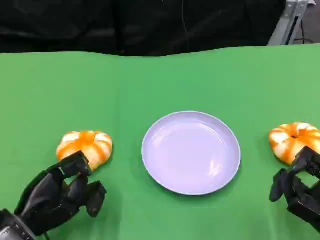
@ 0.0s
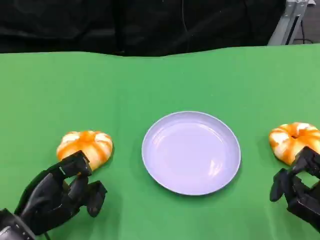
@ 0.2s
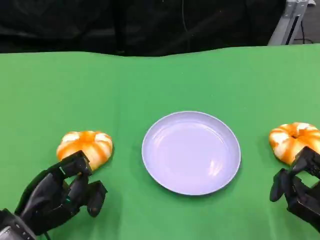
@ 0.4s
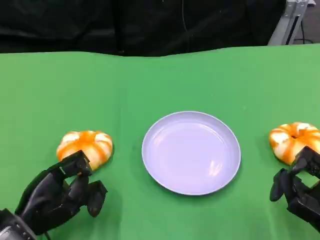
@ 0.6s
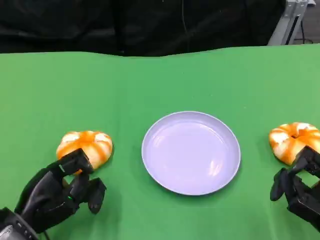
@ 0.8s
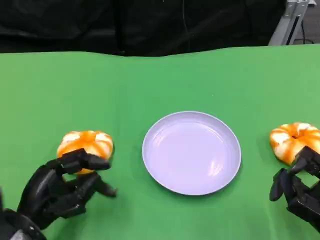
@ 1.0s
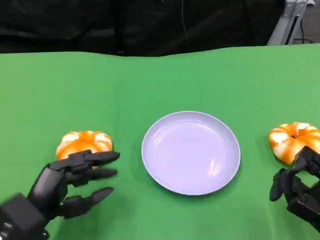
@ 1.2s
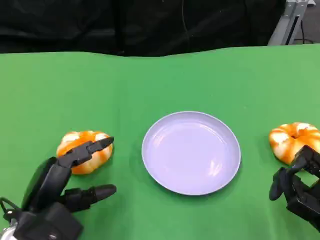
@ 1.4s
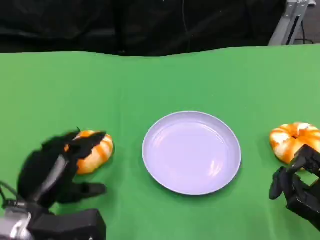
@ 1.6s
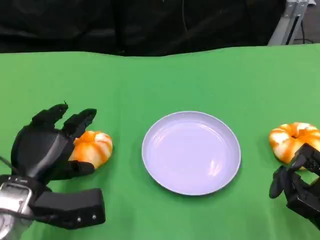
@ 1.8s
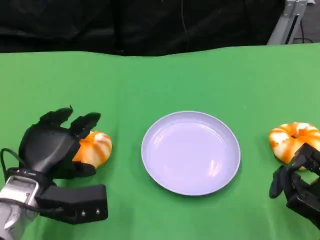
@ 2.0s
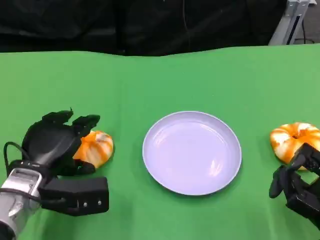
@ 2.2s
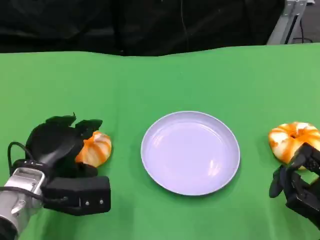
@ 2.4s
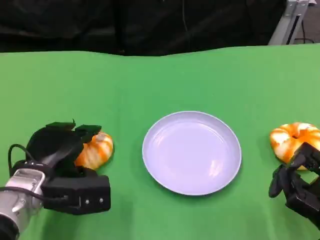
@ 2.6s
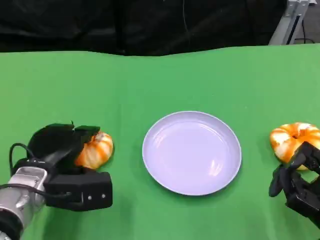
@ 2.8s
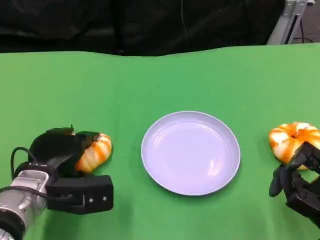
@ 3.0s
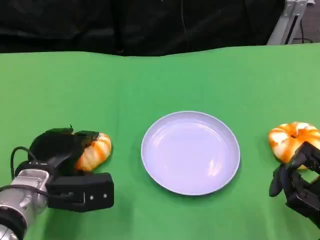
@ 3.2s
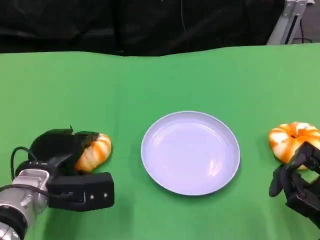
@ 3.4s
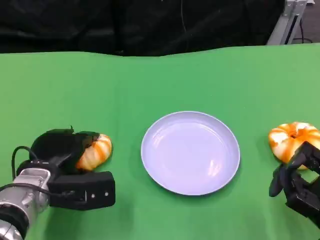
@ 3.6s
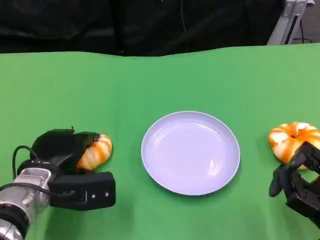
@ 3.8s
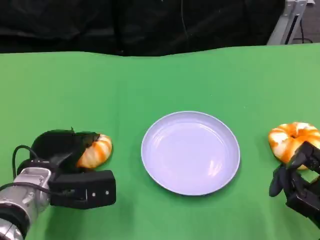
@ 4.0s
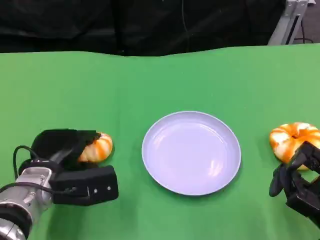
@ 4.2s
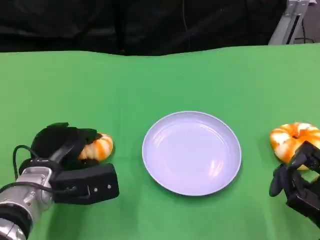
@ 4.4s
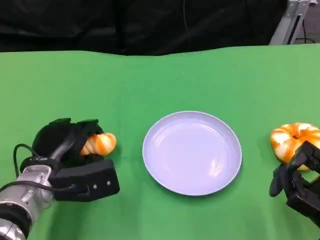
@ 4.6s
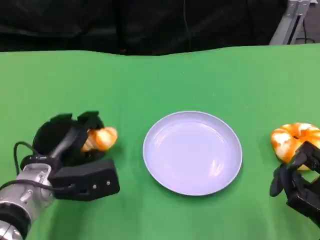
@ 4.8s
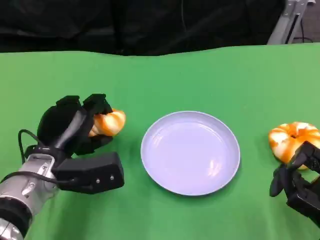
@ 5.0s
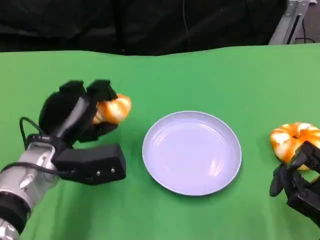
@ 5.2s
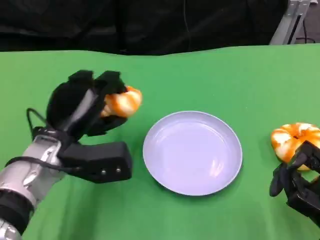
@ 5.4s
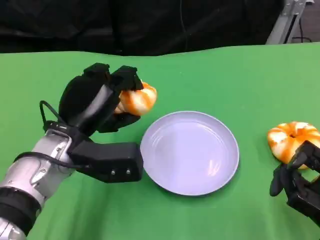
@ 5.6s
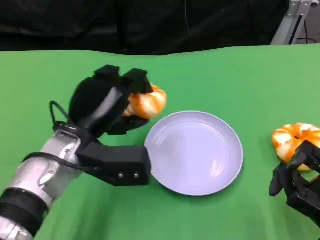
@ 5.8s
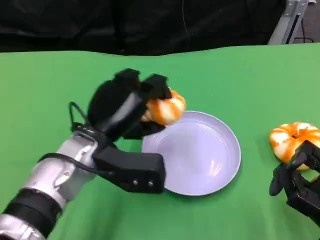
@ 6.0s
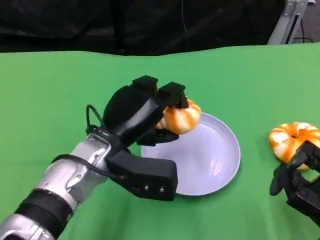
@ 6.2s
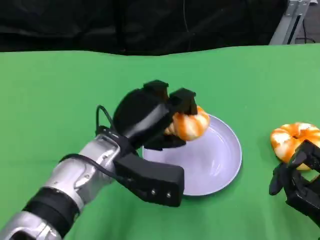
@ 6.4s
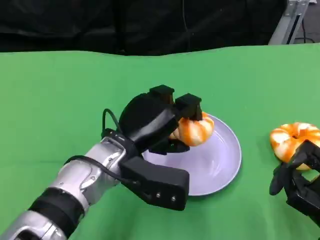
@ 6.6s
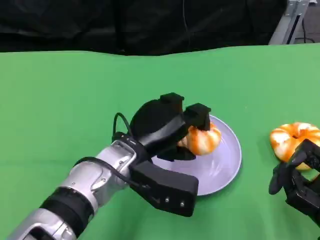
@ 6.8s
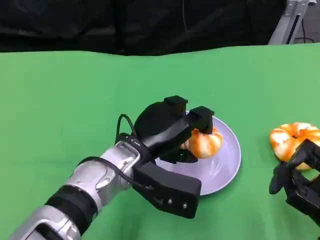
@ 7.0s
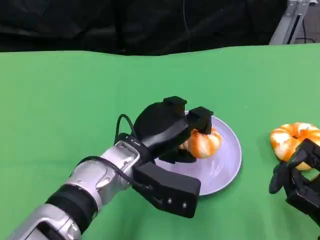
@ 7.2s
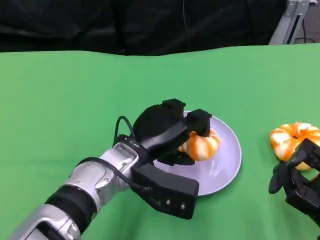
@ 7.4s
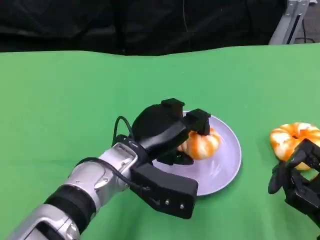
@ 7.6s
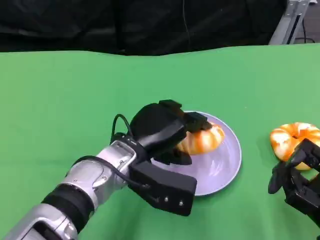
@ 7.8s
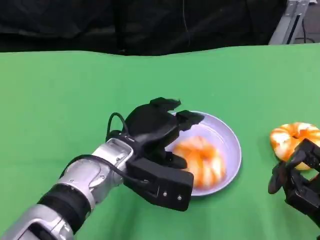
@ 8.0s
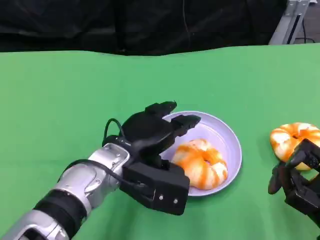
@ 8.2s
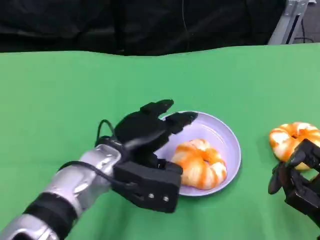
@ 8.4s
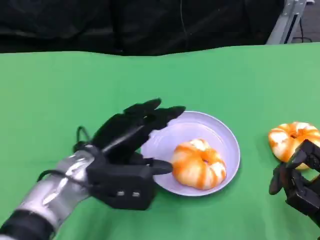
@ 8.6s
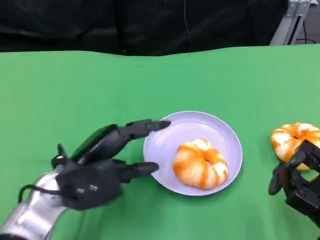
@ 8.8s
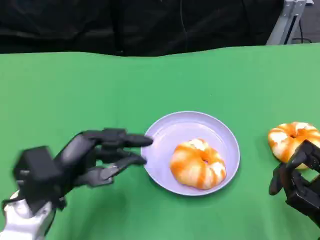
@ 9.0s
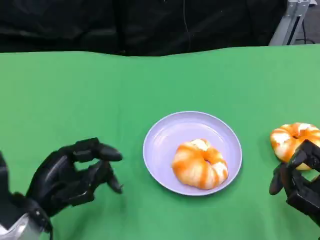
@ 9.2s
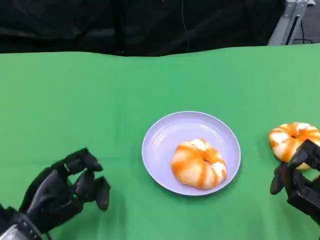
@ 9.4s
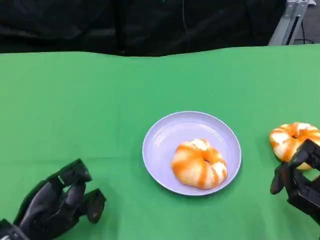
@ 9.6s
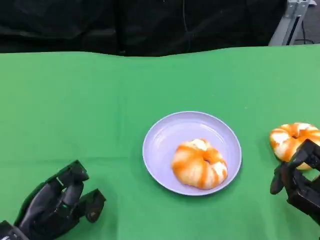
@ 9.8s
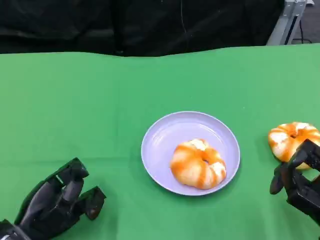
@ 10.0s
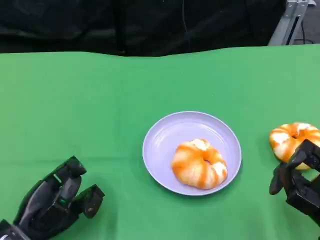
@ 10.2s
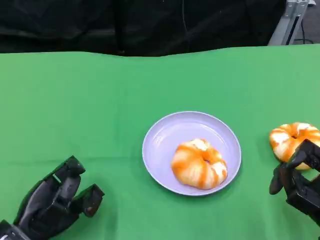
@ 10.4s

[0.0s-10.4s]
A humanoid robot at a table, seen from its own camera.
Task of the whole recording: Grasp the bread from the table and place it into the plate.
1.4s to 3.0s: The left hand travels forward by about 5 cm.
3.0s to 4.4s: The hands make only small movements.
4.4s to 6.0s: The left hand travels to the right and upward by roughly 10 cm.
6.0s to 7.4s: The left hand shifts by approximately 5 cm.
7.4s to 9.0s: The left hand travels to the left by approximately 15 cm.
9.0s to 10.4s: The left hand shifts roughly 5 cm downward.

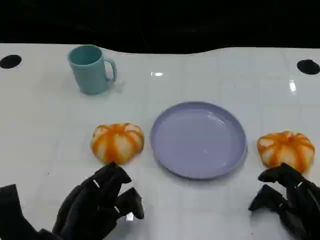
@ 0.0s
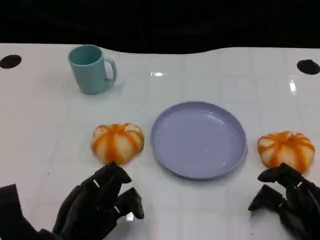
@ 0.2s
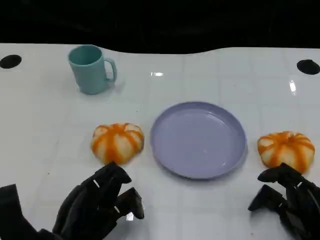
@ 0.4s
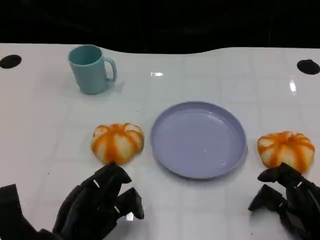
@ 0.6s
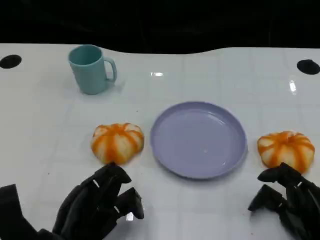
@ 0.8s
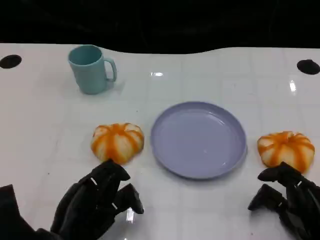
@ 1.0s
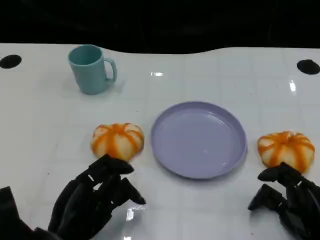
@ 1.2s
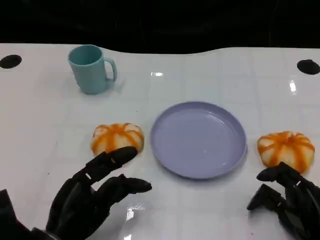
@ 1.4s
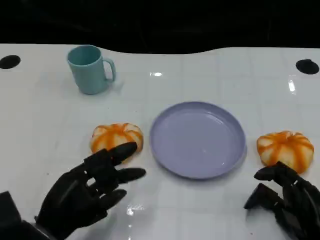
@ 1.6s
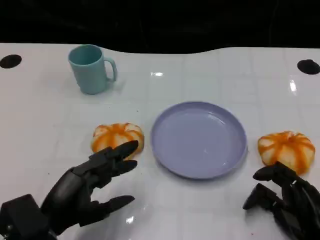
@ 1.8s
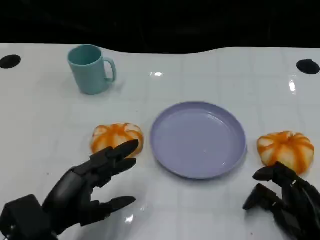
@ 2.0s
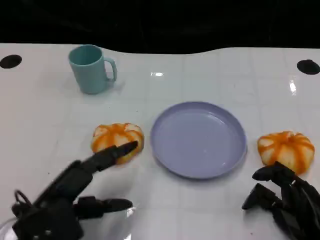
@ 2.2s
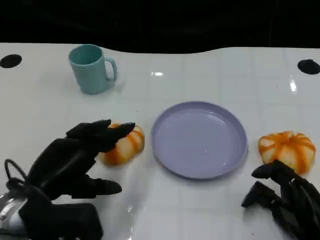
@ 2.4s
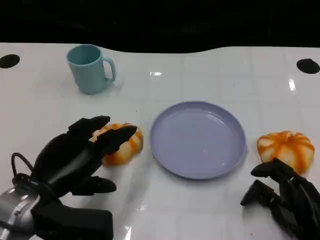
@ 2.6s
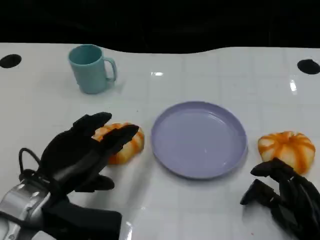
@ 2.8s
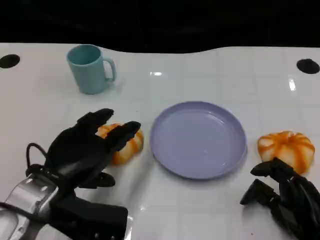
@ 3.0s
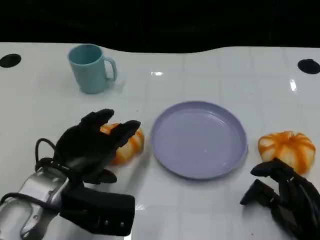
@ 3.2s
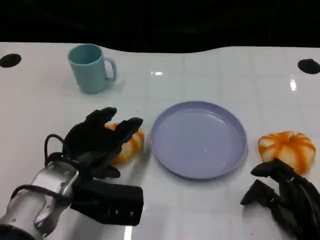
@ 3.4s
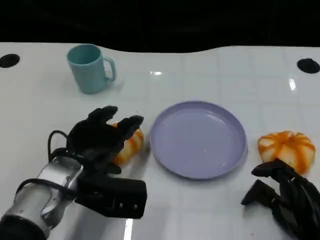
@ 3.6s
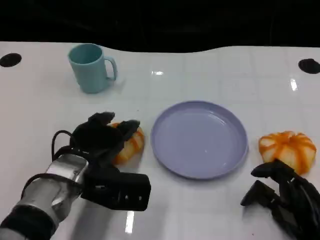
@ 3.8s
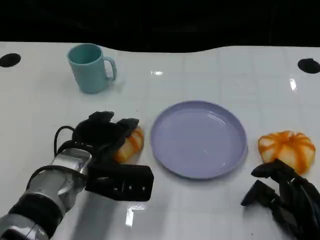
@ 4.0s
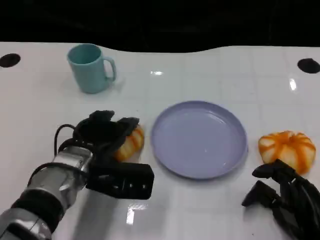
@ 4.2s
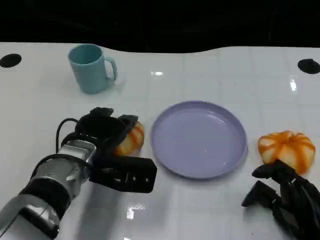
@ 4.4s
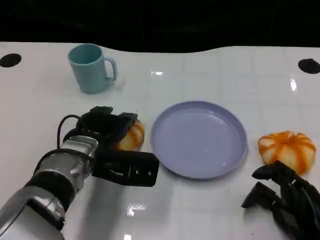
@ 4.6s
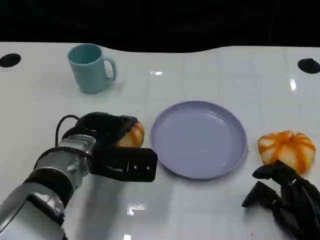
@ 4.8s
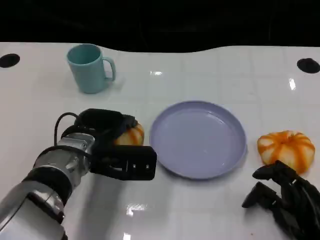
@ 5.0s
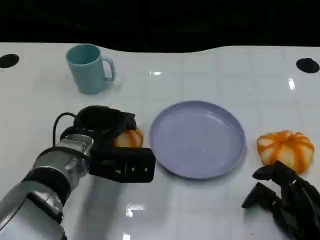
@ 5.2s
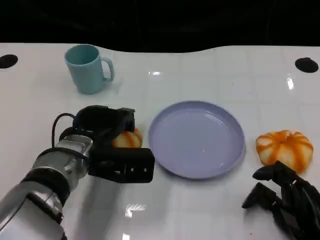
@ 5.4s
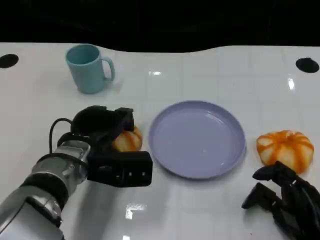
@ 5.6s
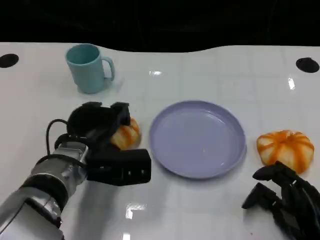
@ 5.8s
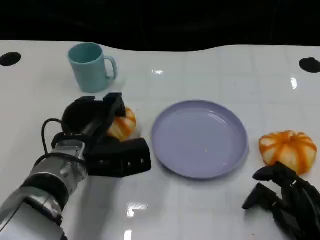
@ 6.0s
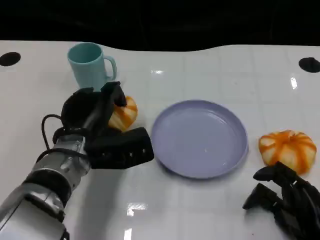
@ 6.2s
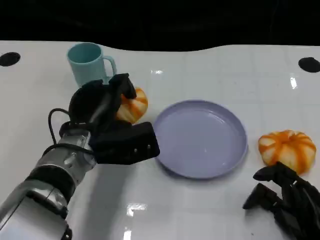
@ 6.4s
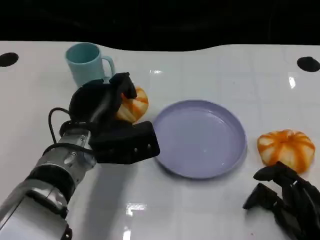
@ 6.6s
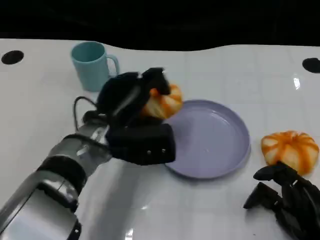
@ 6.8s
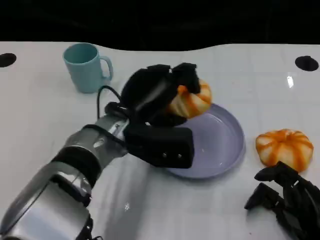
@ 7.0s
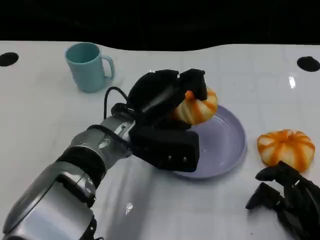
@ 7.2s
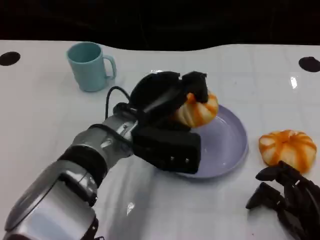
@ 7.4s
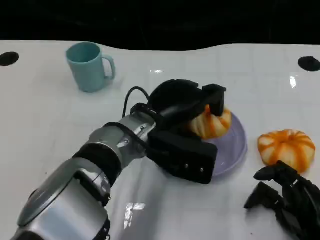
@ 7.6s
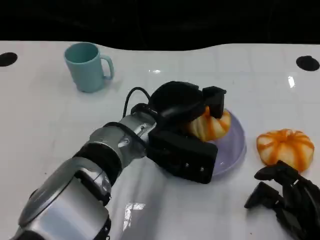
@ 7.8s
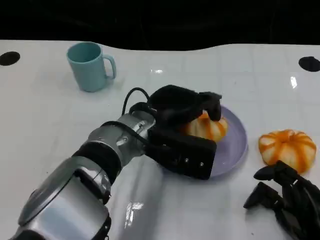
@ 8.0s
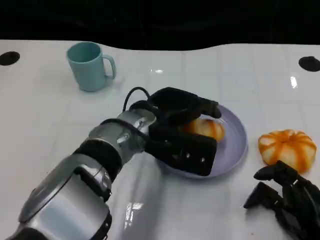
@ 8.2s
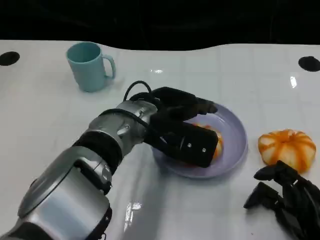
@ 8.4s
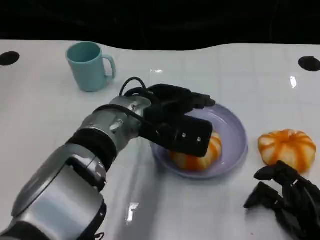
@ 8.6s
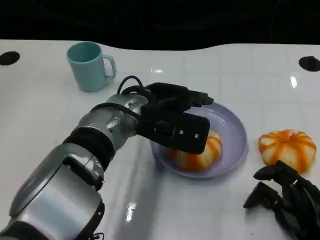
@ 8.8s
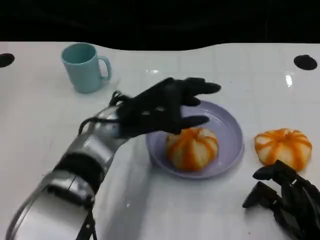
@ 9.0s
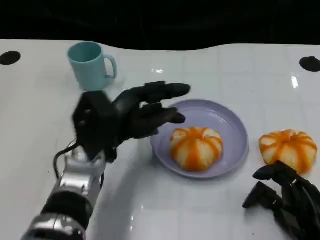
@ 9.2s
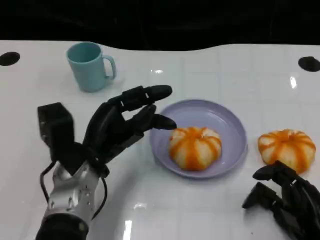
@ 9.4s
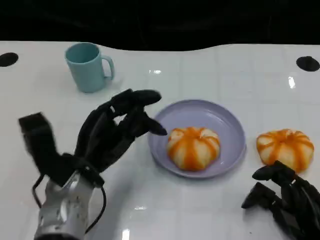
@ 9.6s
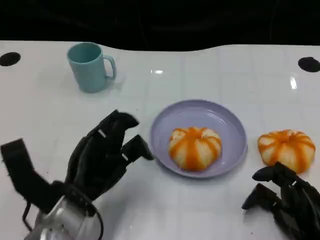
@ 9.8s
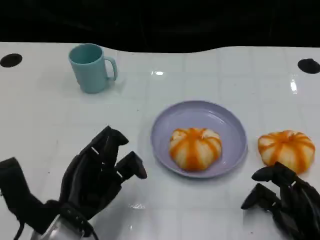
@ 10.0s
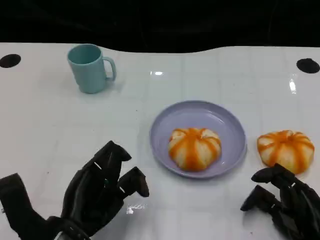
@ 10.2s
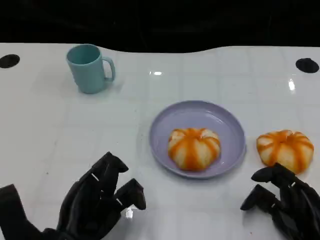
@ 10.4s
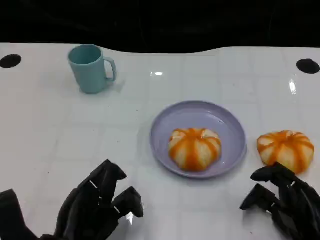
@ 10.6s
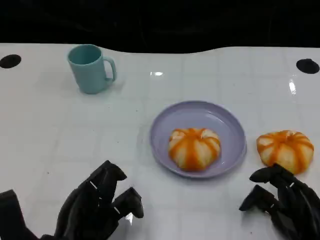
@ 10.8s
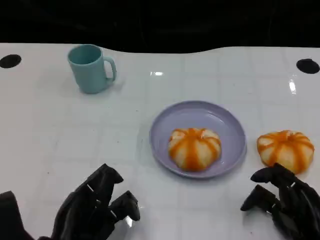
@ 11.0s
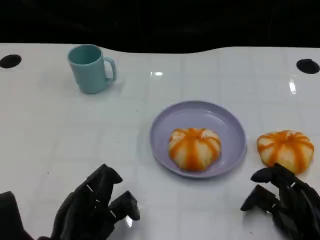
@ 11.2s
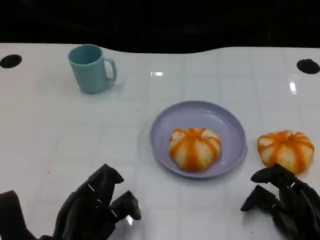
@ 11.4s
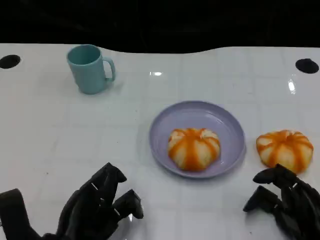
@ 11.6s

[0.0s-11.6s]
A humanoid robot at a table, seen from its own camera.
Task of the whole recording: Grasp the bread from the table and place it into the plate.
0.0s to 1.4s: The hands make only small movements.
1.4s to 2.8s: The left hand travels upward by about 5 cm.
2.8s to 4.4s: The left hand goes some 10 cm forward and to the right.
4.4s to 5.8s: There are only small adjustments of the hands.
5.8s to 7.2s: The left hand heads to the right and upward, covering roughly 10 cm.
8.8s to 10.2s: The left hand travels backward, to the left and downward by about 20 cm.
10.2s to 11.6s: There are only small adjustments of the hands.
